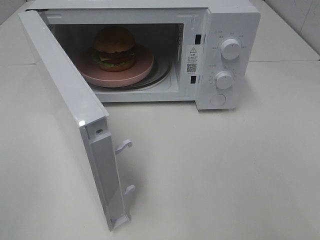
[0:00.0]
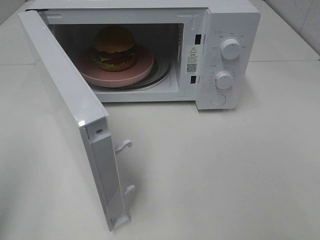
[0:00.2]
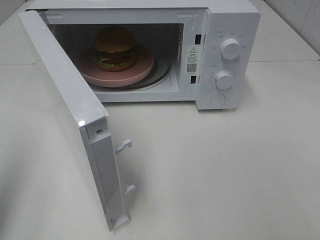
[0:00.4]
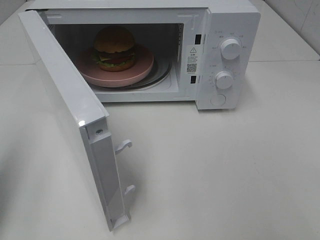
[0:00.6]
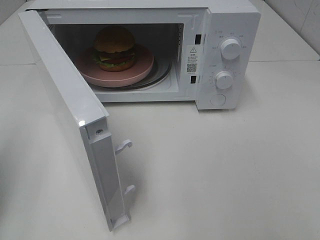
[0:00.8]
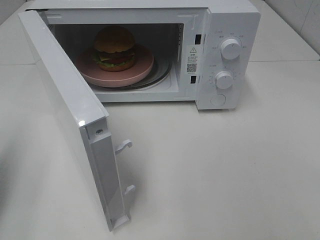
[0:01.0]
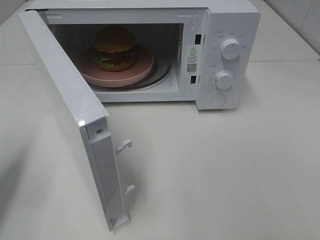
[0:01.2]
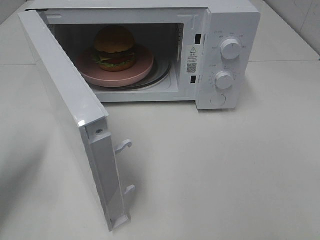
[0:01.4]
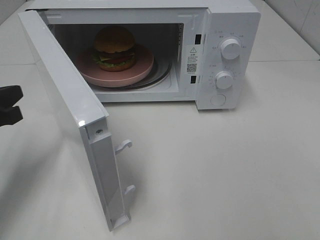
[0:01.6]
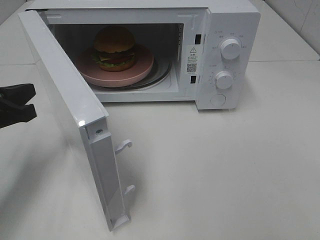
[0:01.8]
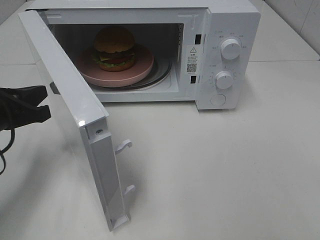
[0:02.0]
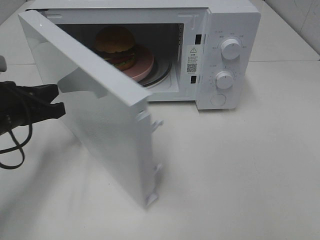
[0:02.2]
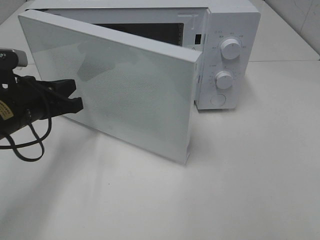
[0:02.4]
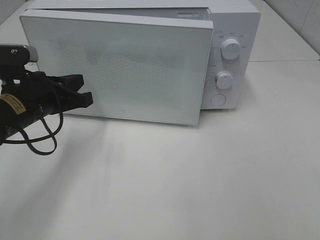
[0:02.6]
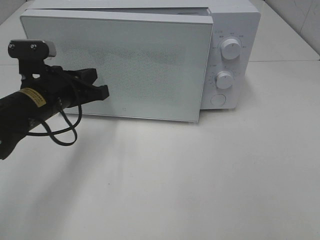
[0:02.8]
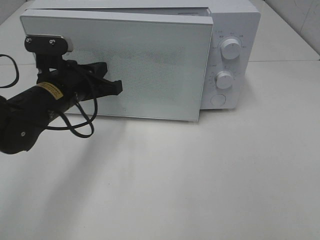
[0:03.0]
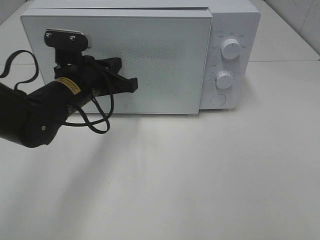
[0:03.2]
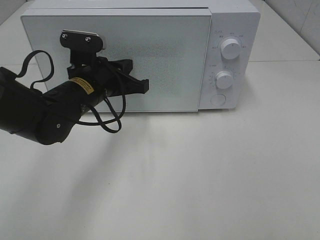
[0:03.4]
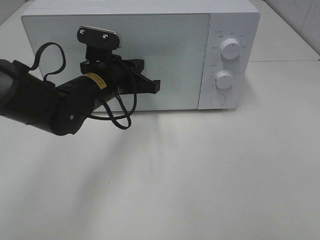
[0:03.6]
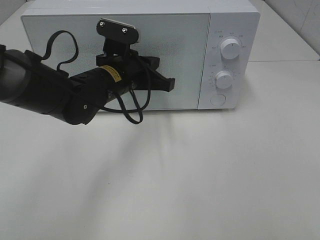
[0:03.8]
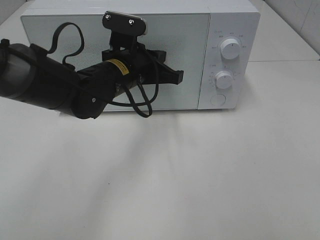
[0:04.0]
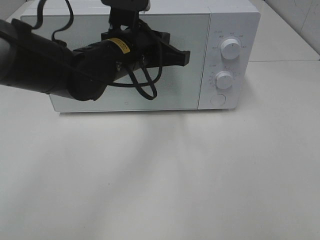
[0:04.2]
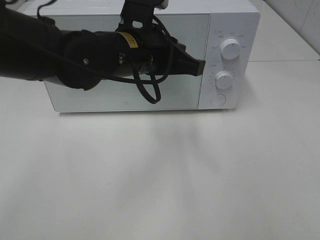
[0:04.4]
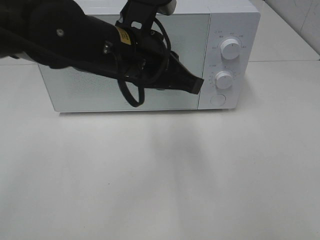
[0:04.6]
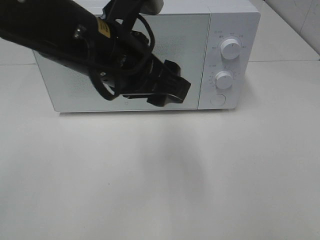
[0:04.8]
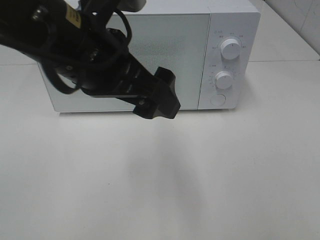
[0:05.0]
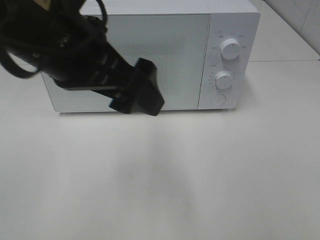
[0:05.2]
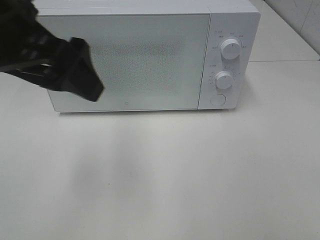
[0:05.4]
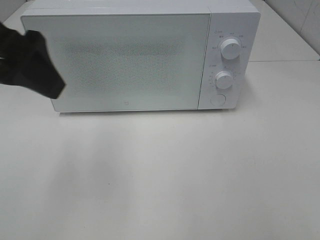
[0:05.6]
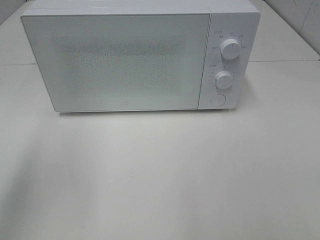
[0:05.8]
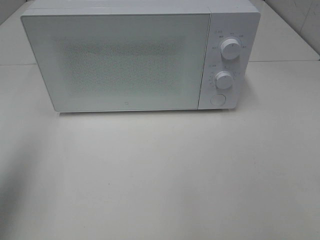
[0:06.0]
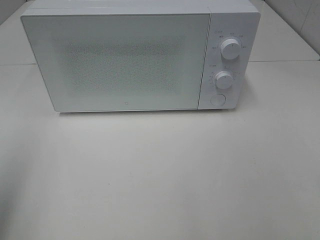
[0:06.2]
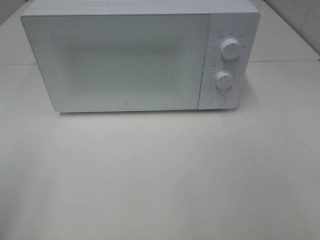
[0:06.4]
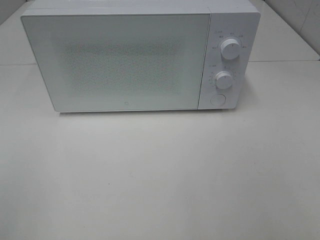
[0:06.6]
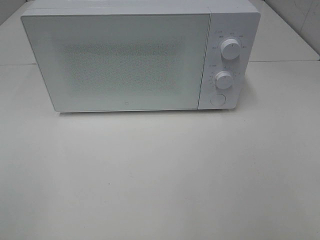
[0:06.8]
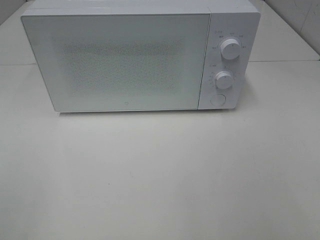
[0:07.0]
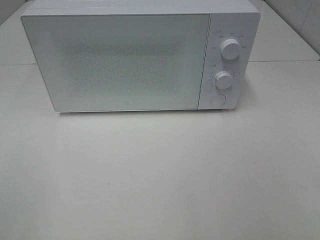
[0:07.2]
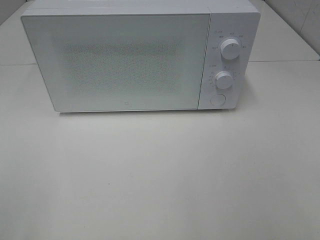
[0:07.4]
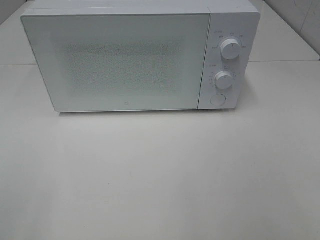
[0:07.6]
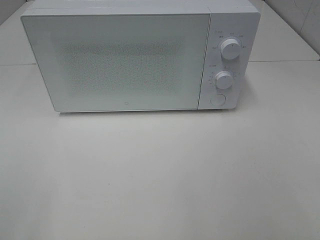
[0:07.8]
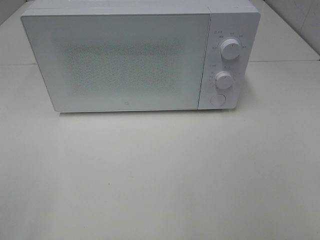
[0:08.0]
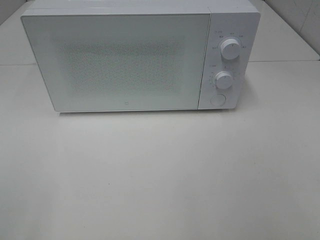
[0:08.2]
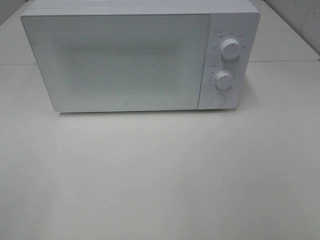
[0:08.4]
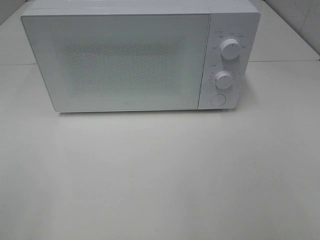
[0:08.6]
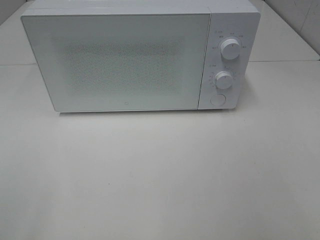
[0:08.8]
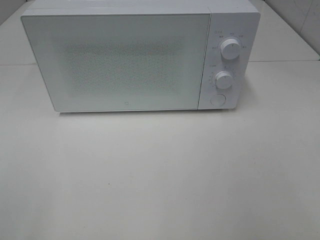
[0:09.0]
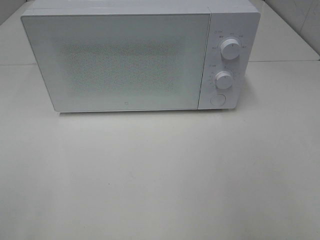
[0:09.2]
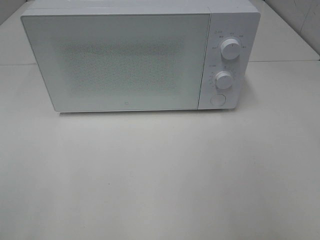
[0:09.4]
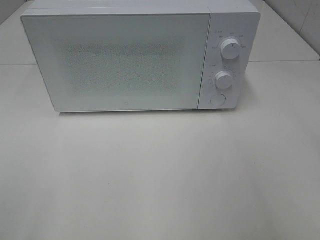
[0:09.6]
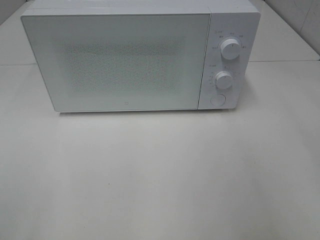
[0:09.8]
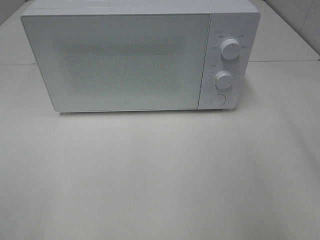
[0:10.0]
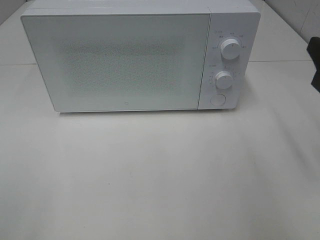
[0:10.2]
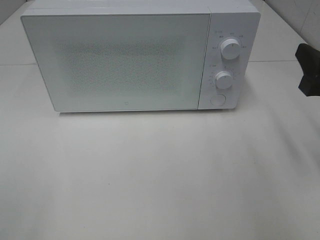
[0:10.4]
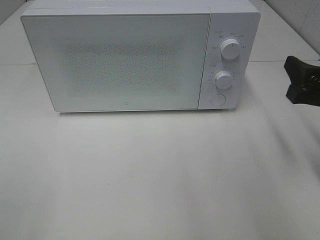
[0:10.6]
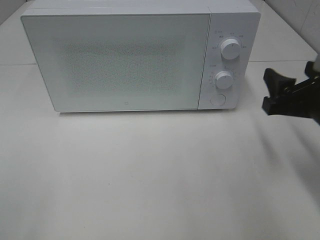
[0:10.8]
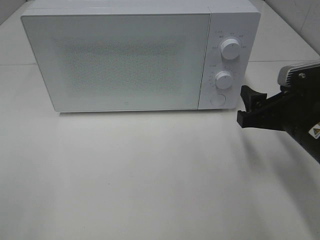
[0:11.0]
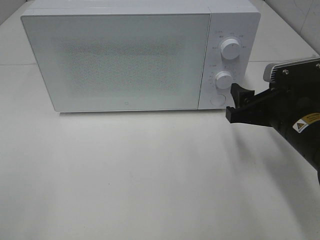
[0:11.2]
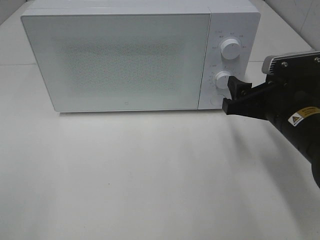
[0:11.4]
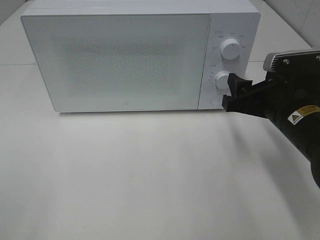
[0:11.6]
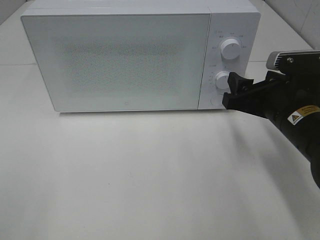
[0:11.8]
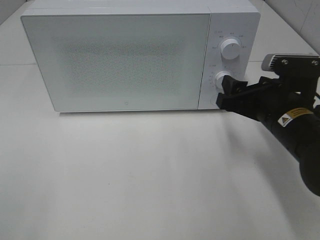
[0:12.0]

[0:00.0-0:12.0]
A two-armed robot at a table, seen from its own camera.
Task of the whole recording: Heat the burger.
Step, 0:00.0 to 0:03.6: Left hand: close the microwave door.
0:00.0 to 0:01.6: The left gripper heads forward and downward, covering roughly 25 cm, and closes.
0:01.6 to 0:03.0: The left gripper shifts roughly 15 cm to the right and forward.
0:03.0 to 0:04.4: The left gripper moves to the right and upward, roughly 15 cm.
0:04.4 to 0:06.0: The left gripper is displaced to the left, upward and backward by roughly 35 cm, and opens.
0:06.0 to 0:07.6: The left gripper is displaced backward and downward by about 20 cm.
0:09.0 to 0:10.4: The right gripper shifts roughly 20 cm forward and downward.
0:10.4 to 0:12.0: The right gripper heads to the left and downward, covering approximately 10 cm.

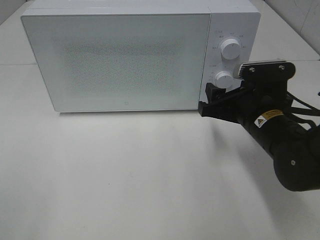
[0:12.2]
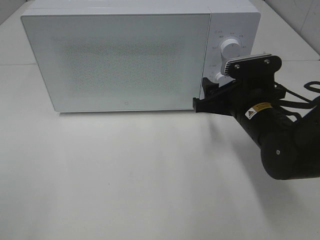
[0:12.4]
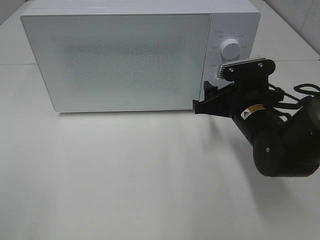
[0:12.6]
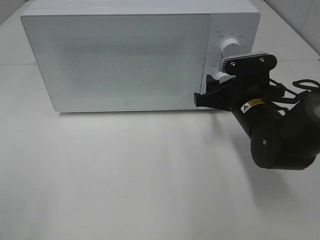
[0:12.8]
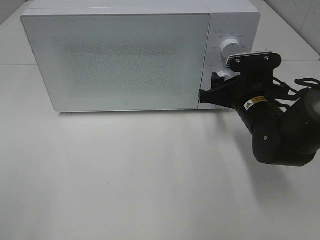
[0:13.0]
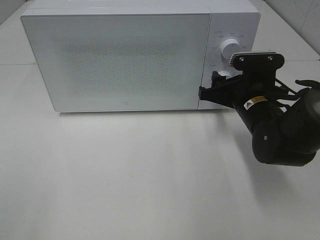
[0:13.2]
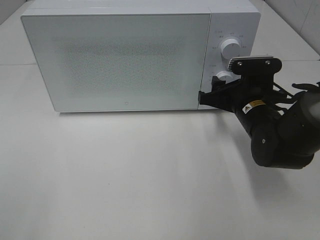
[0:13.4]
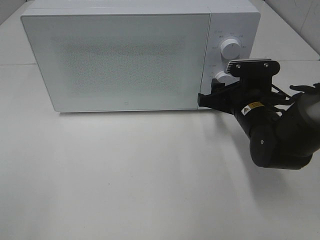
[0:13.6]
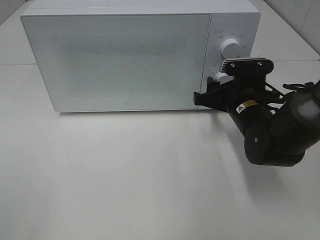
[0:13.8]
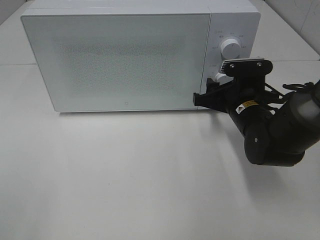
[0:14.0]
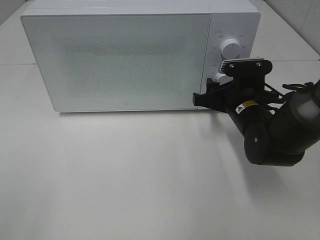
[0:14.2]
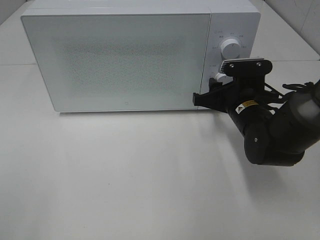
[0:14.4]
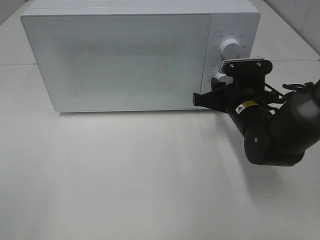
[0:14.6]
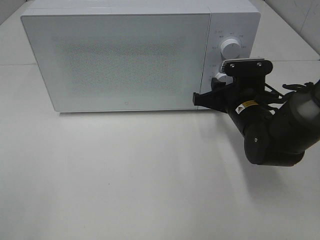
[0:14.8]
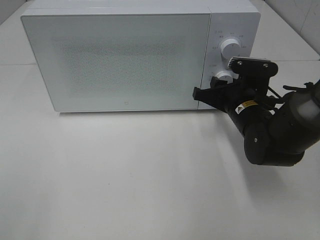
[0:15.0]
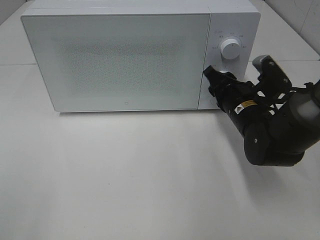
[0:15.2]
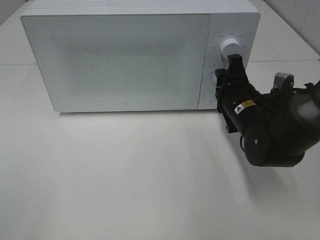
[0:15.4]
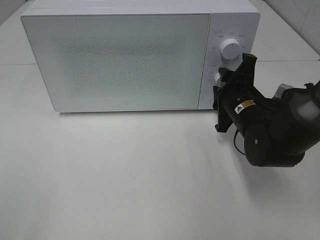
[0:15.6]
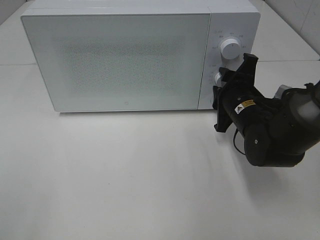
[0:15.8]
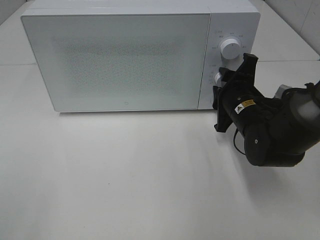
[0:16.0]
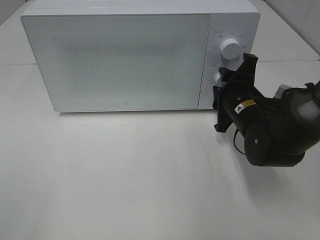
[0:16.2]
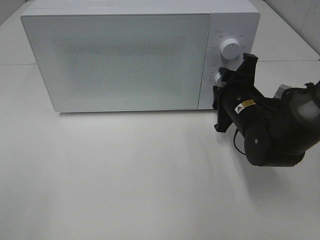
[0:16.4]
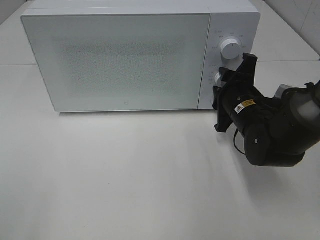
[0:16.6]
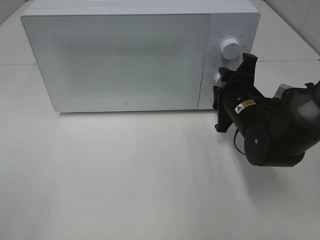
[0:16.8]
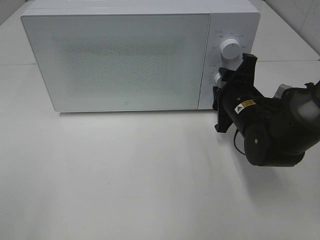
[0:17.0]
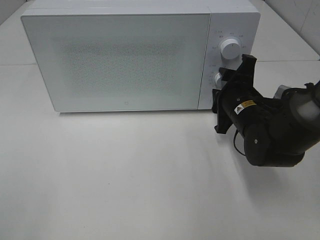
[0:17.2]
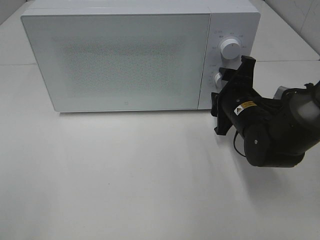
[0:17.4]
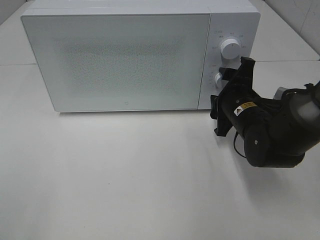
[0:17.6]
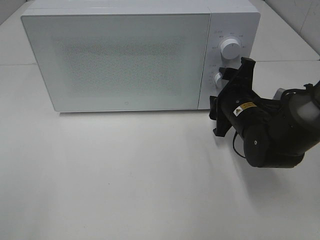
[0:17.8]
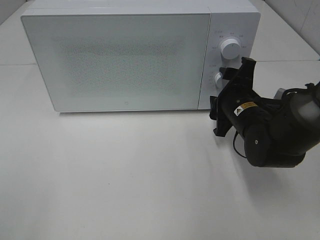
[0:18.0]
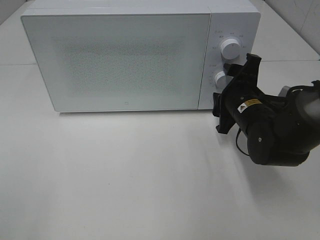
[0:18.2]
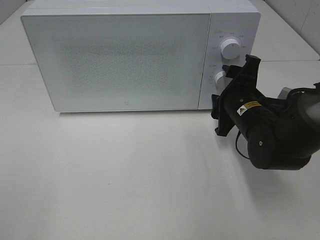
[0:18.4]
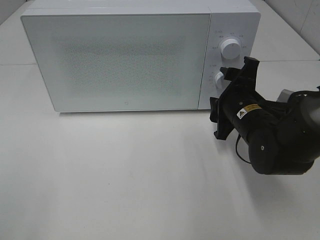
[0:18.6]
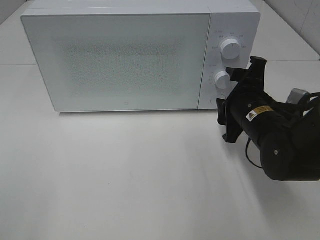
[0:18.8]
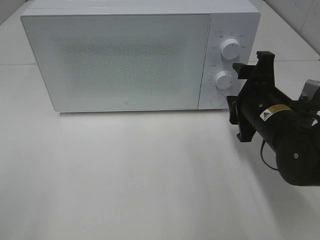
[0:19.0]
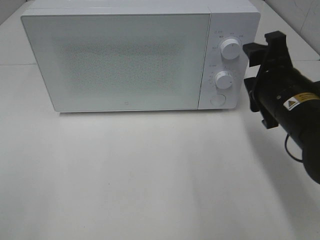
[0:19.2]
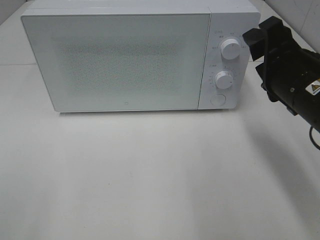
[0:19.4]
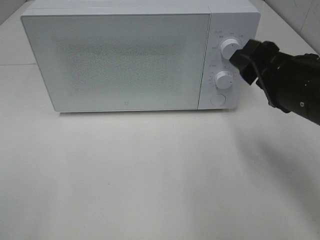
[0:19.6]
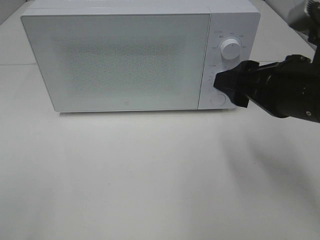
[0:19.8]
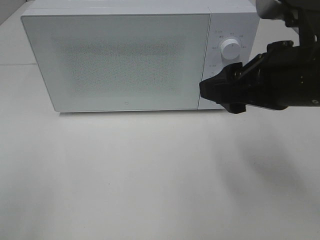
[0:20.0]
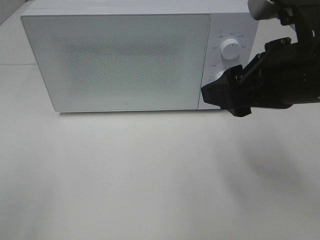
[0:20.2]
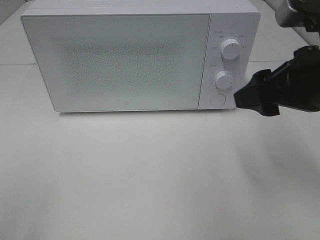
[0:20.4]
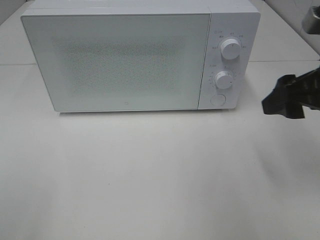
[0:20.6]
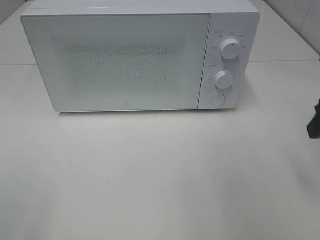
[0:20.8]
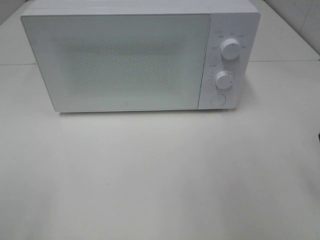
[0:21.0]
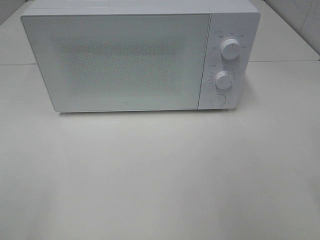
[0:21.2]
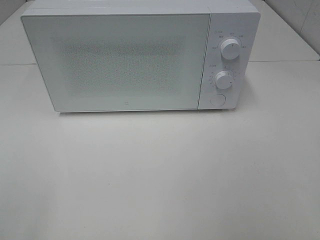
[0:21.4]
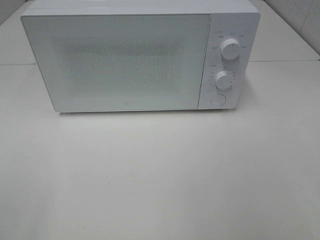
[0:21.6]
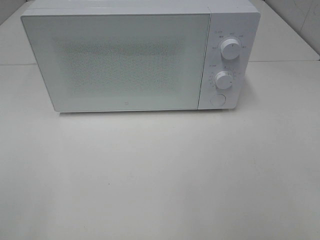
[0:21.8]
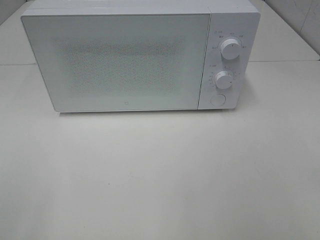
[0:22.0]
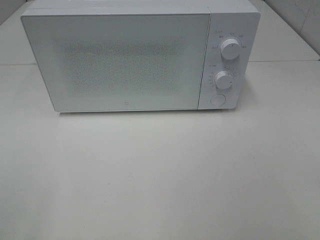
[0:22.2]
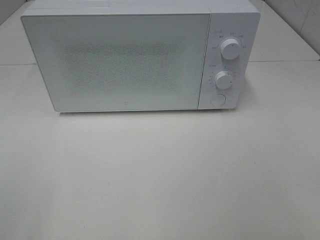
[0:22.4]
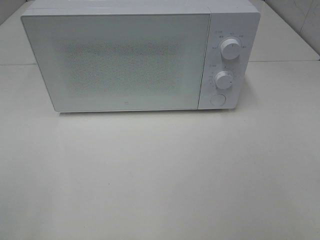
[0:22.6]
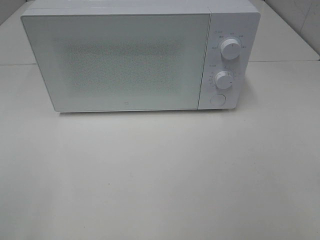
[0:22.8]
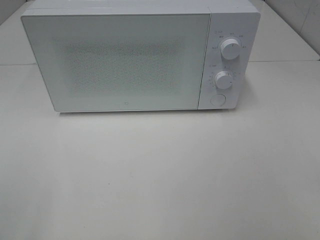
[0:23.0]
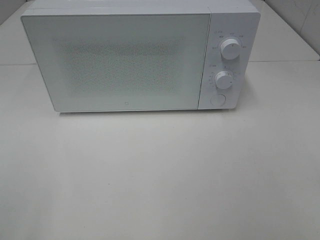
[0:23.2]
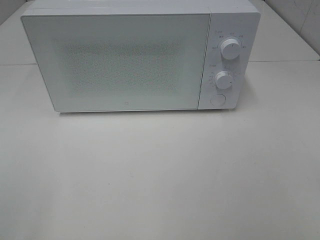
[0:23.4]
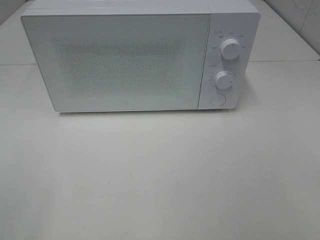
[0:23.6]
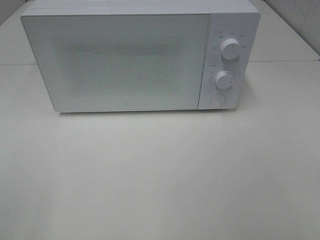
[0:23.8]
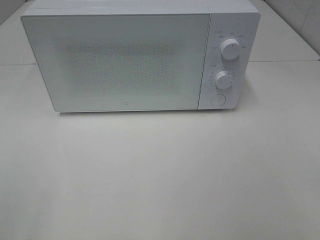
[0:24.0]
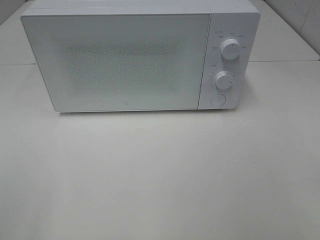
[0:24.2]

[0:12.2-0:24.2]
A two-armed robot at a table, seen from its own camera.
Task of the whole recording: Heat the burger.
Step, 0:12.2 to 0:17.2: Right hand: twist timer button.
0:12.2 to 0:13.8: The right gripper moves forward, about 5 cm.
0:16.6 to 0:18.2: Both grippers stay about where they are.
0:18.2 to 0:19.8: The right gripper shifts about 15 cm upward and backward.
0:19.8 to 0:21.2: The right gripper moves to the right, some 10 cm.
0:22.6 to 0:24.2: Both grippers stay put.
